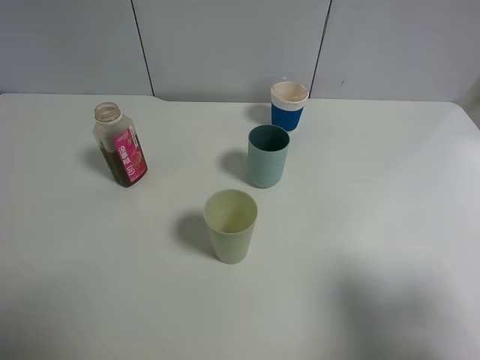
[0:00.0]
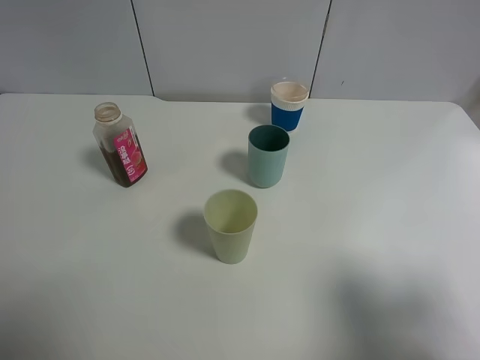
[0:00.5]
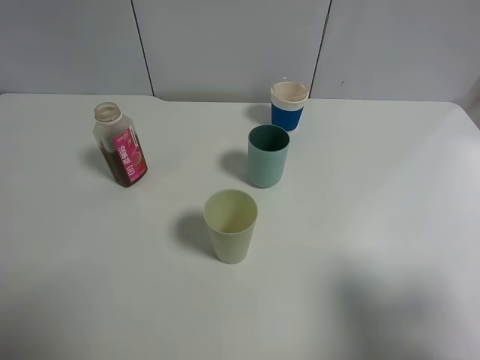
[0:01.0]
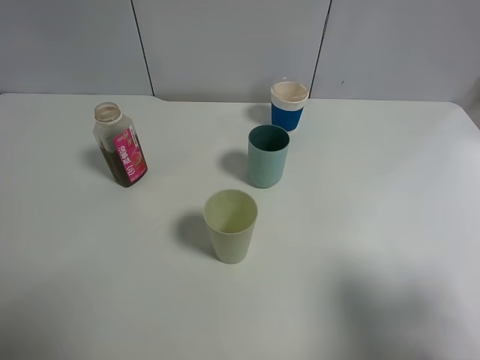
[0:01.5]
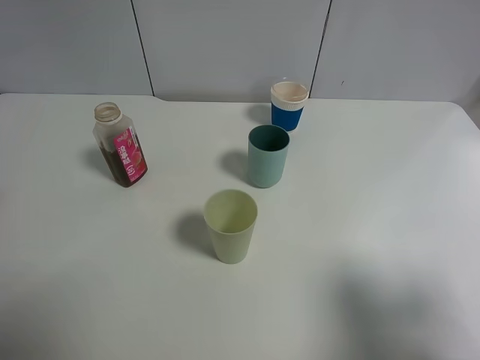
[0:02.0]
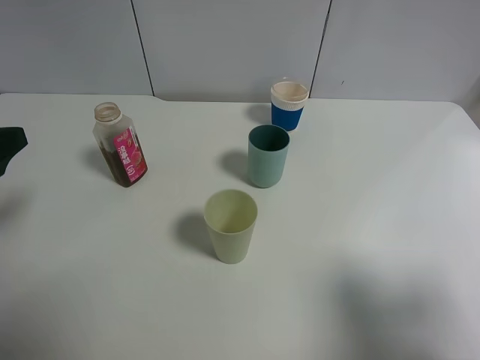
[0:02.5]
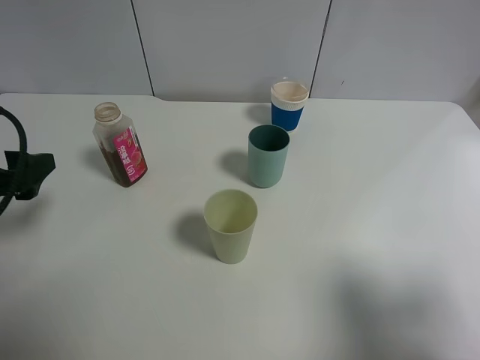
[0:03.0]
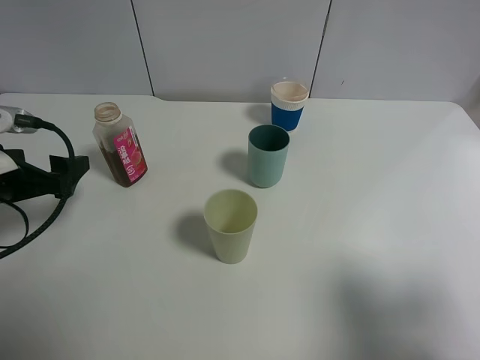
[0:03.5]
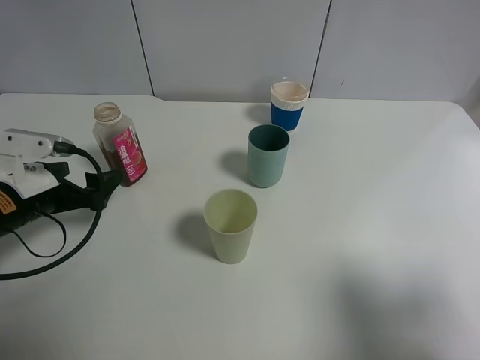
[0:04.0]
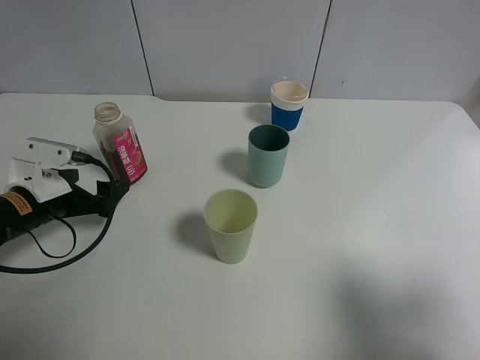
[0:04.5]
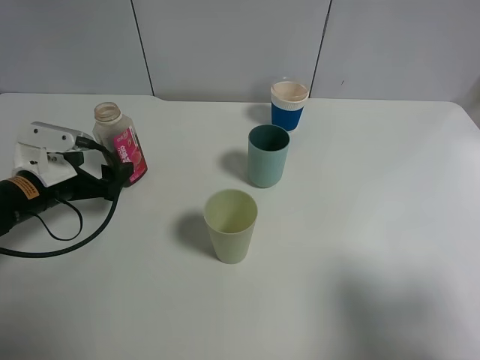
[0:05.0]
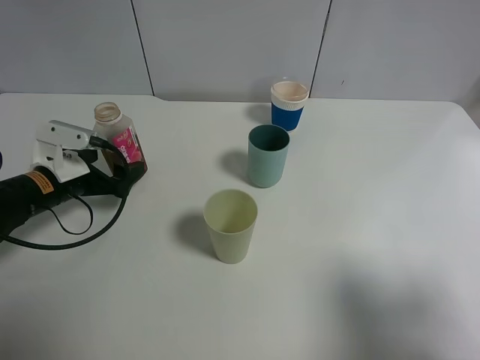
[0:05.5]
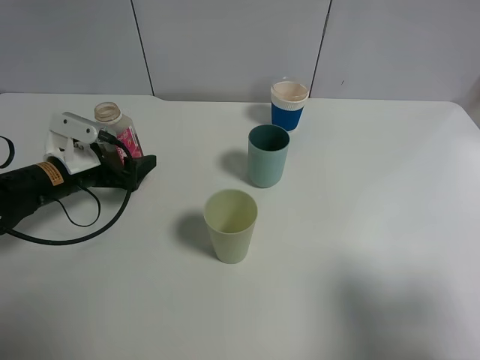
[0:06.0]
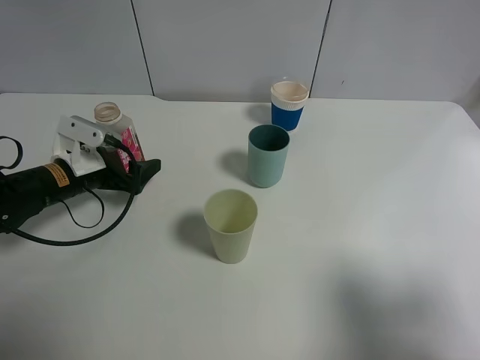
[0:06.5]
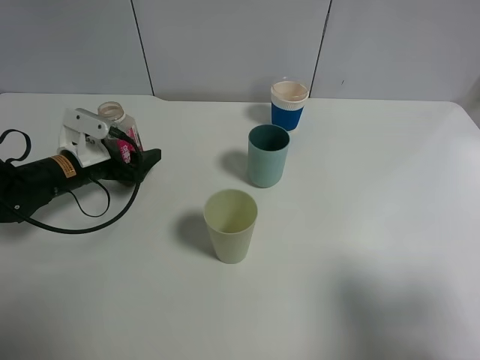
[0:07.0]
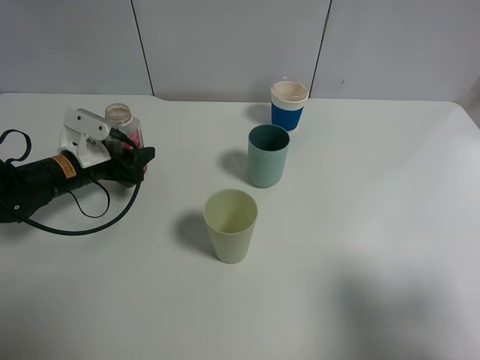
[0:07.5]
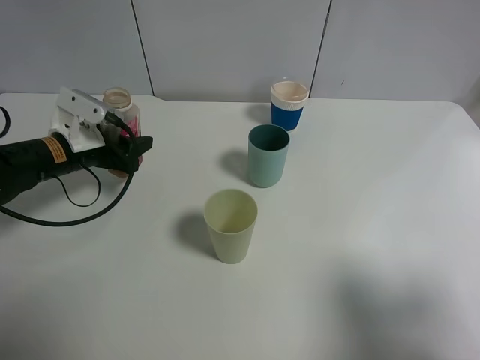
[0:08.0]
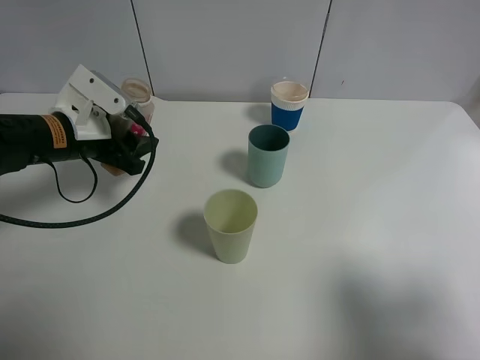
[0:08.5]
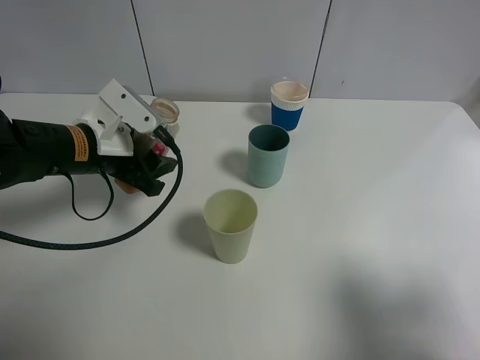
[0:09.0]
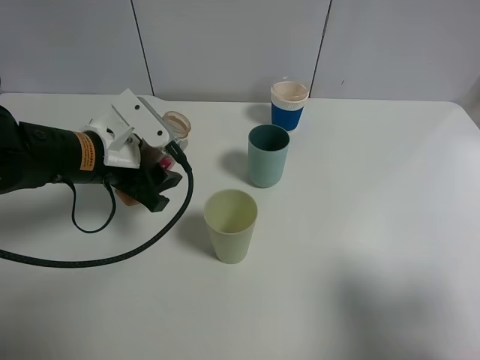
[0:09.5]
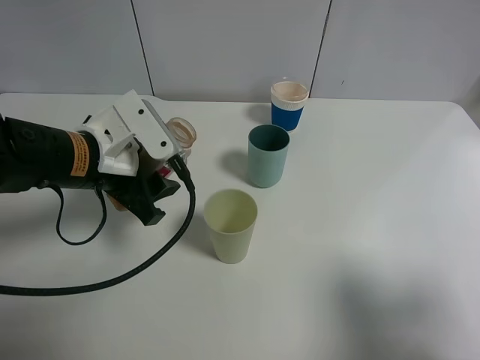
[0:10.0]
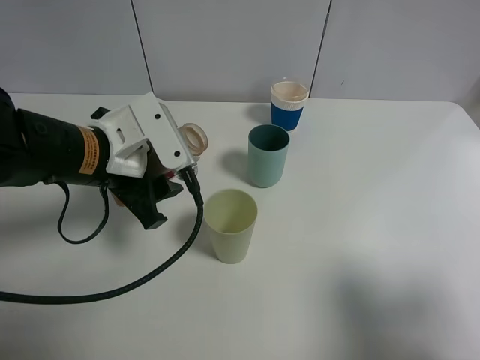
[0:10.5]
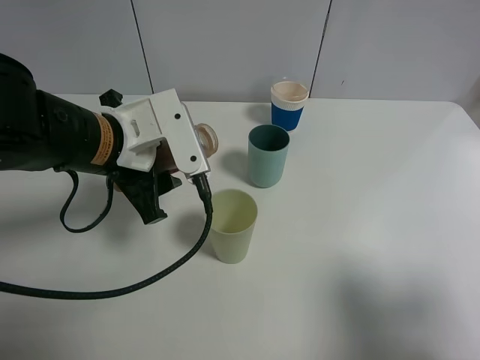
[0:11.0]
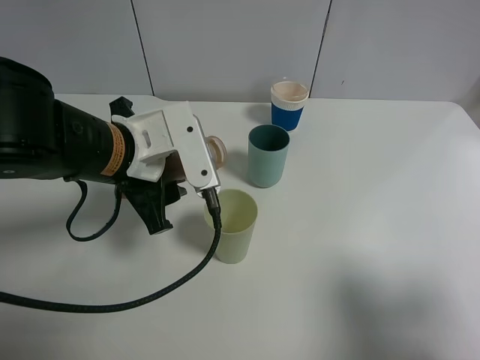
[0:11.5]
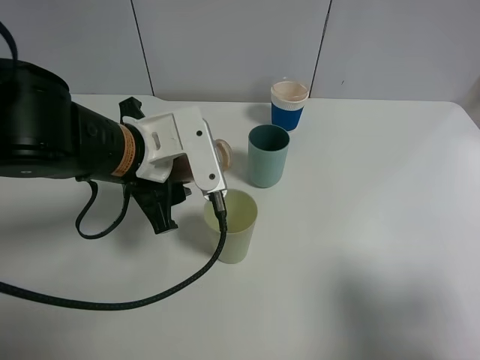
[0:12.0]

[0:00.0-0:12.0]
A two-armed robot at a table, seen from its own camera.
Task of the whole recording: use a gripper to hold the bottle of the drink and pour it into a random cup.
Step, 0:00.0 to 0:07.5: Grasp the mineral water bottle with the left gripper.
0:02.0 to 0:04.0: The left gripper heads downward and forward, covering approximately 20 cm.
0:04.0 to 0:06.0: The left gripper is displaced forward by approximately 5 cm.
0:06.0 to 0:08.0: The left gripper closes its fingers.
0:08.0 to 0:10.0: The left gripper moves to the right, backward and upward, roughly 15 cm.
0:10.0 to 0:12.0: The left gripper shifts by some 5 cm.

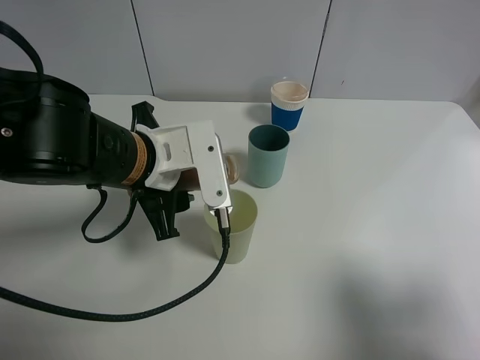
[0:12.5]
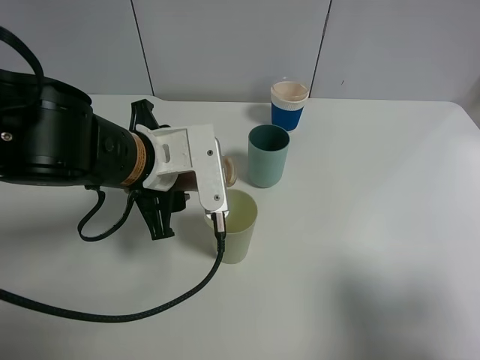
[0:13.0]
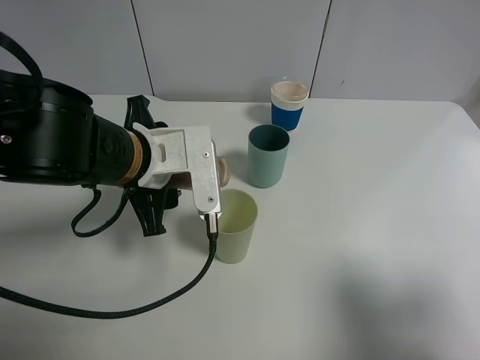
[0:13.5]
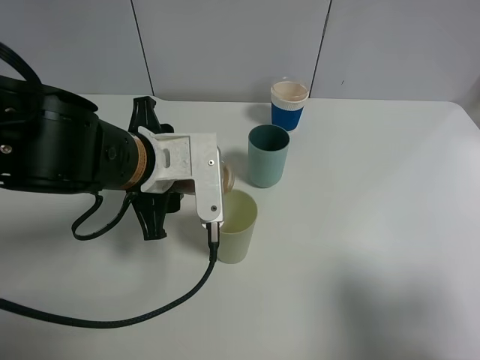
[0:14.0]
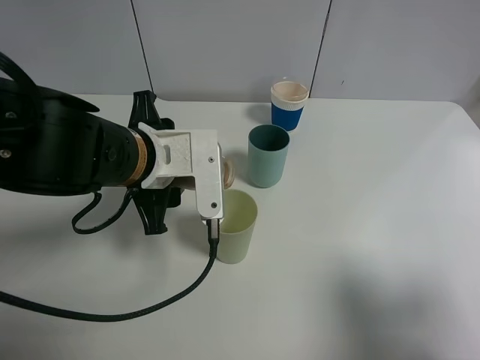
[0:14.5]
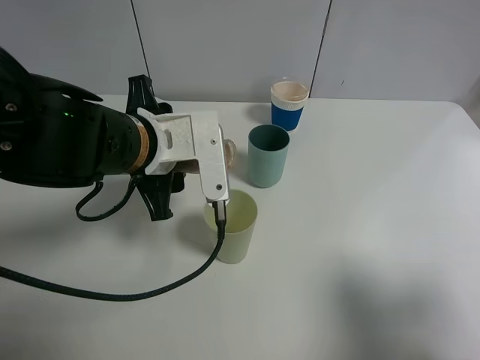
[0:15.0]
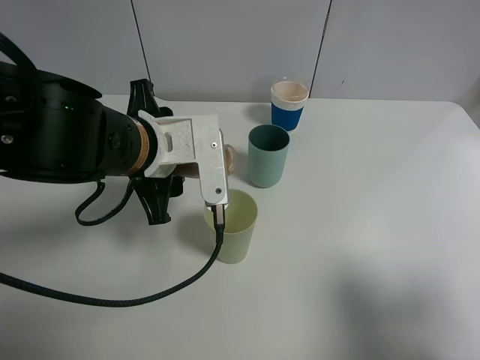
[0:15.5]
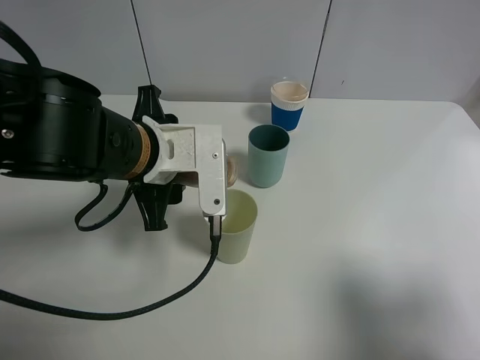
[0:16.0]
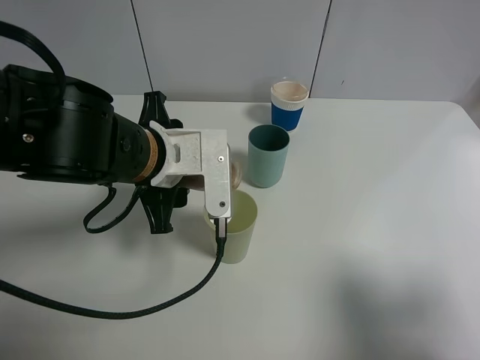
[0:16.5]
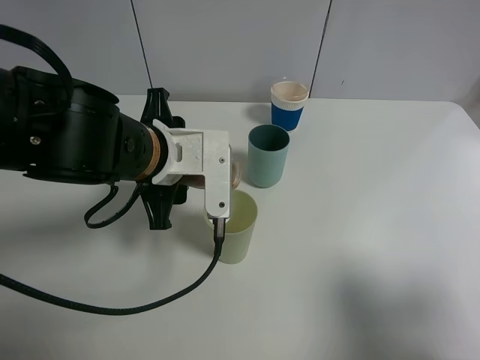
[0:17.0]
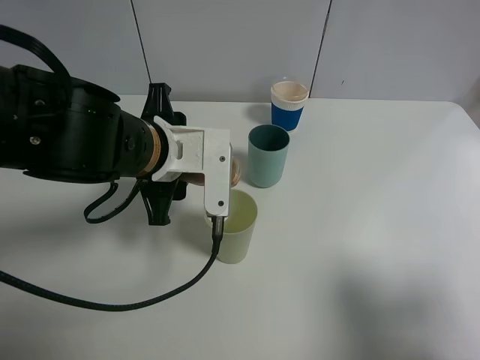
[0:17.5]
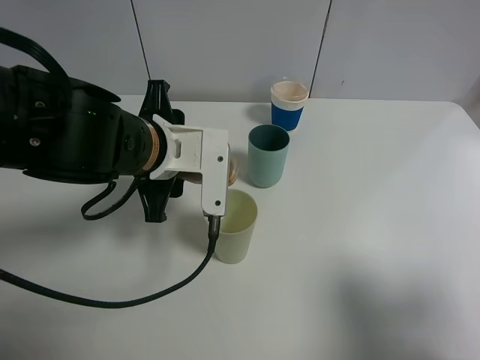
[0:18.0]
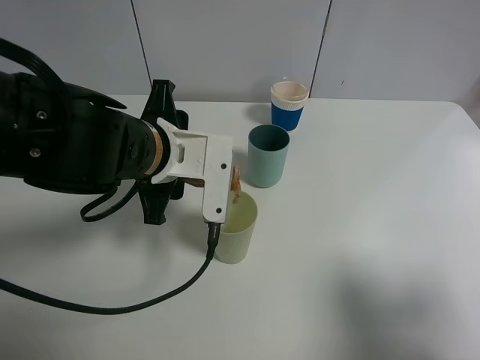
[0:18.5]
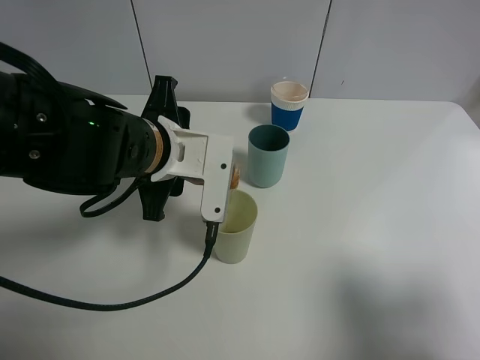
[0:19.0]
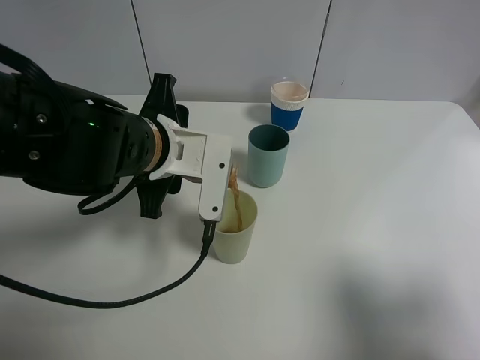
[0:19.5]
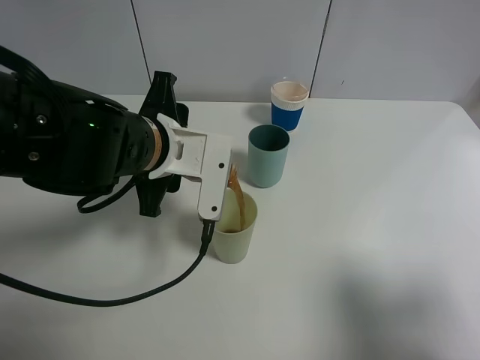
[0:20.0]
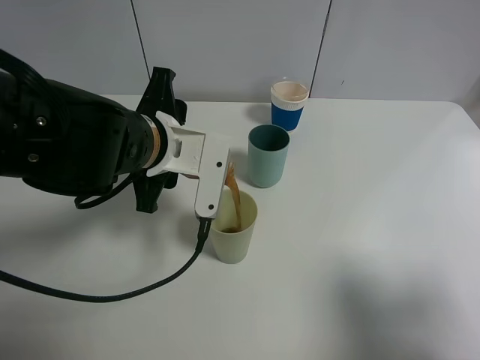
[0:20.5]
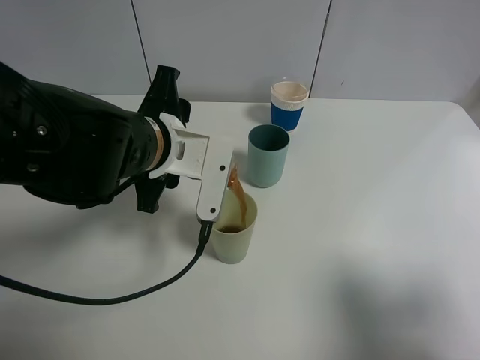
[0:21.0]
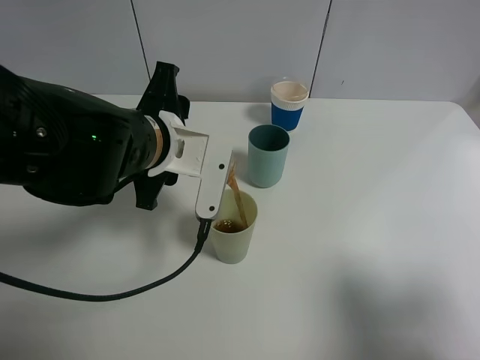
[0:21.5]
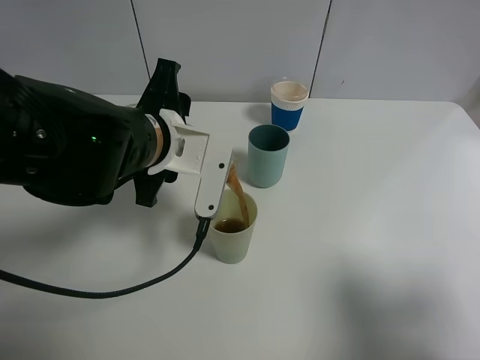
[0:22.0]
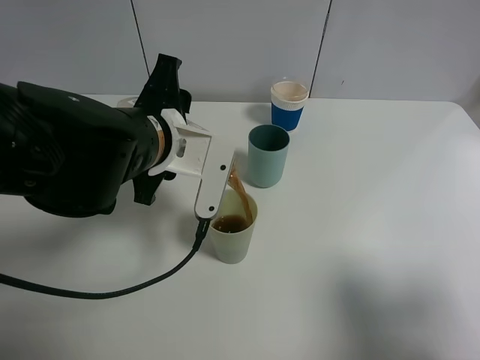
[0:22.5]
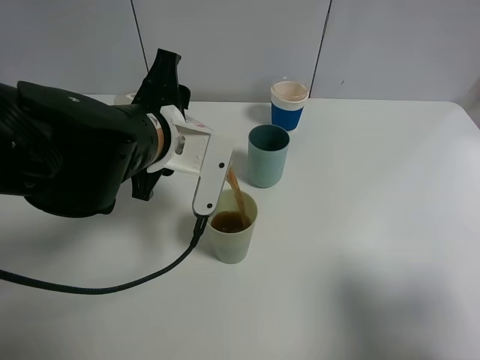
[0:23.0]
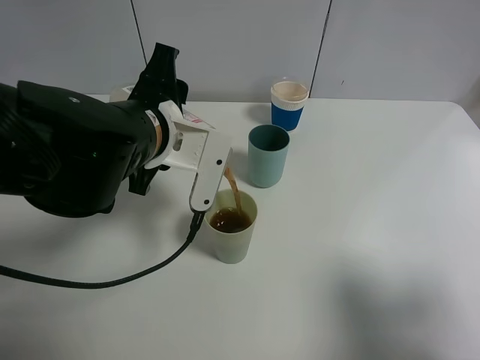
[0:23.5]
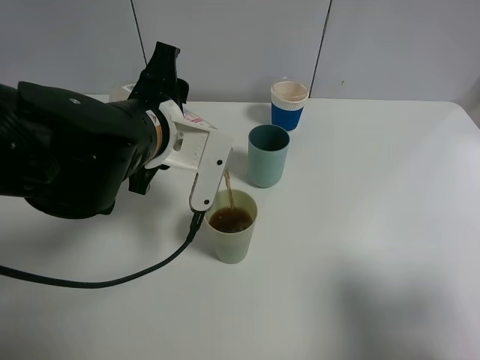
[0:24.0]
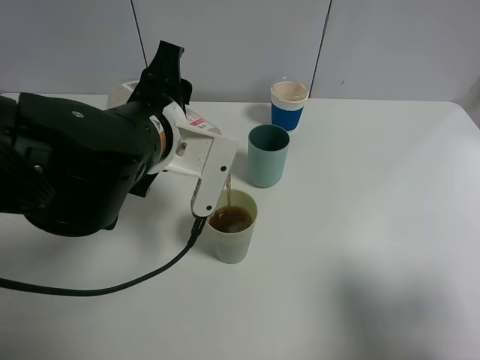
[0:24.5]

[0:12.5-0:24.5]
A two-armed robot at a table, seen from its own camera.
Task of the whole recording: use a gripper to hold the bottle of the drink and pour it into a random cup.
0:12.5 to 0:14.5: There are only small adjustments of the grippers.
0:14.5 to 0:16.5: Both grippers stay about where they are.
0:16.5 to 0:20.5: There are only small adjustments of the grippers.
0:20.5 to 0:24.5: The grippers make only small movements.

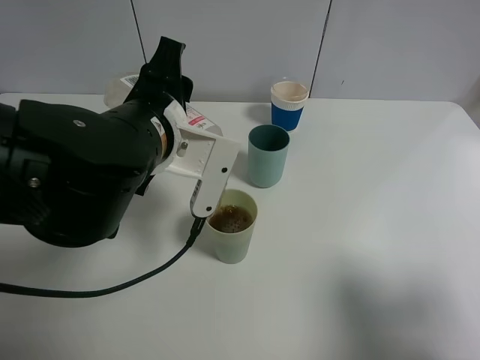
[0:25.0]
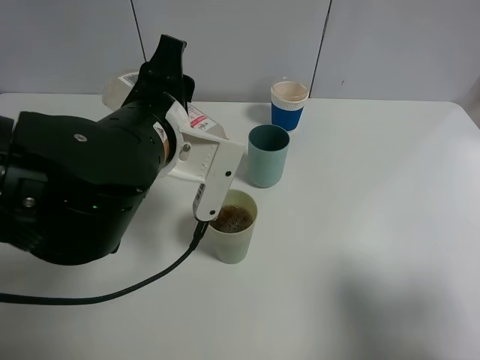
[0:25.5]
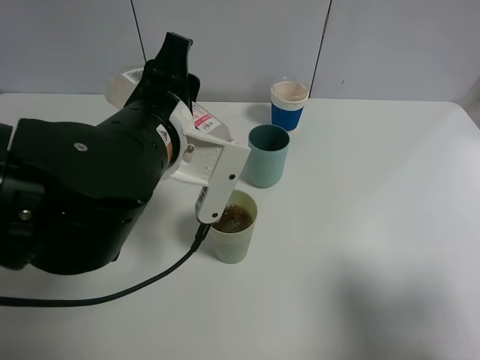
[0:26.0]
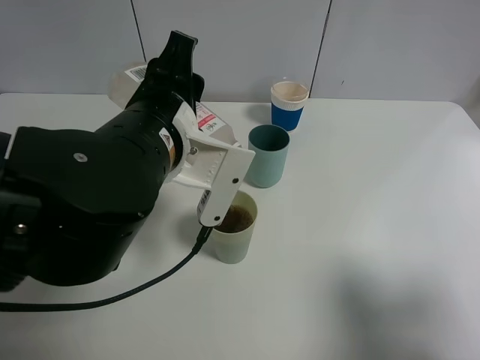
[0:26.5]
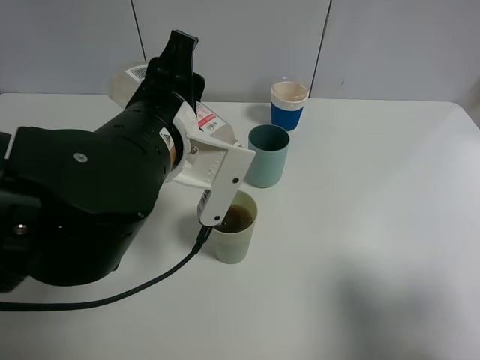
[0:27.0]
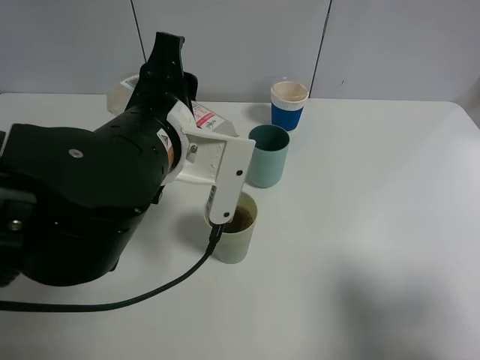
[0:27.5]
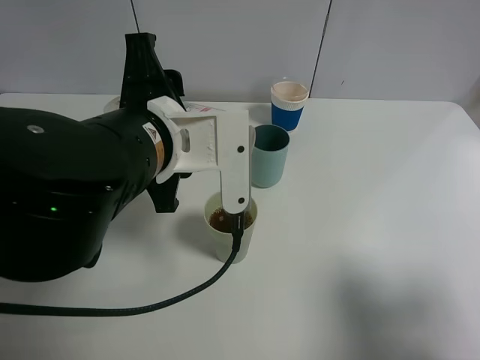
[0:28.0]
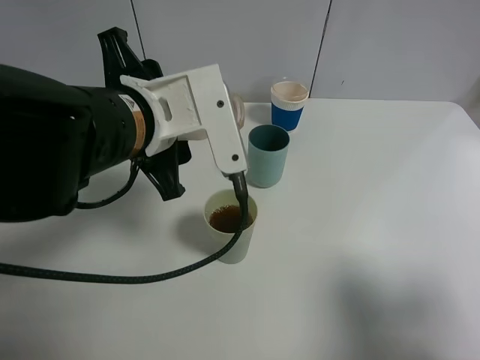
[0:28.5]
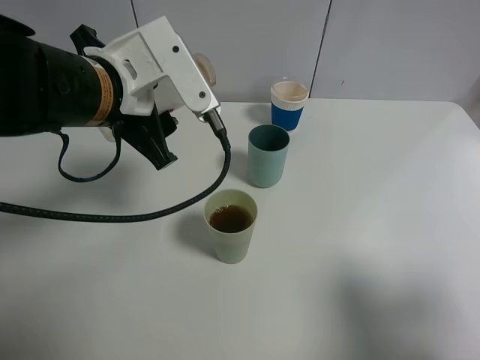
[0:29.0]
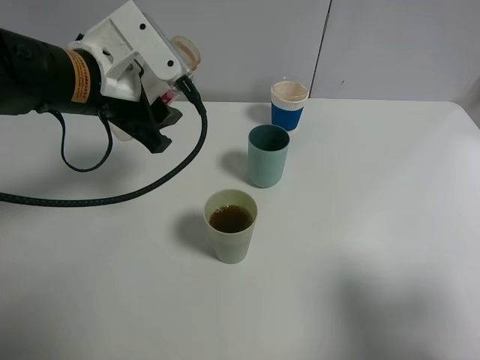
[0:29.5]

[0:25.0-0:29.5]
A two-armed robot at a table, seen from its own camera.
Task of the whole recording: use a gripper to hold the bottle of the drink and pour it into a random cup.
Step, 0:25.0 to 0:28.5: Pour the cranberry juice into the White Plastic Cup with the left gripper.
0:25.0 to 0:27.0: The grippers stay close to where they were, moving slightly.
0:27.0 to 0:29.5: The left gripper travels to the left and forward by approximately 10 cm.
